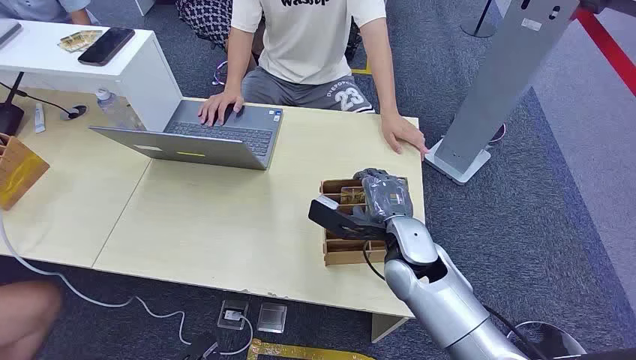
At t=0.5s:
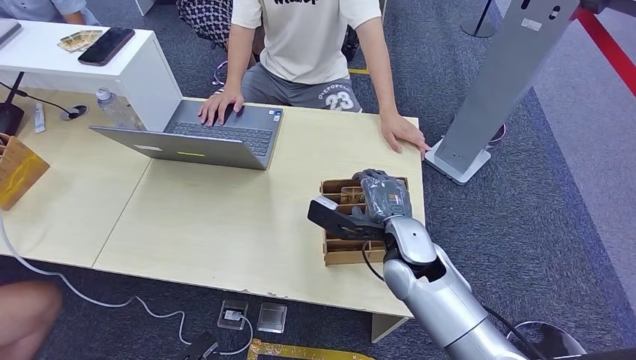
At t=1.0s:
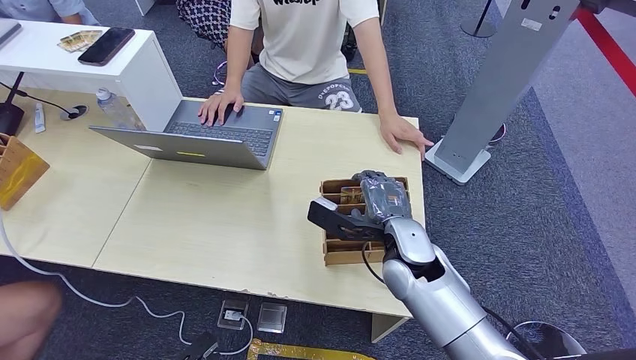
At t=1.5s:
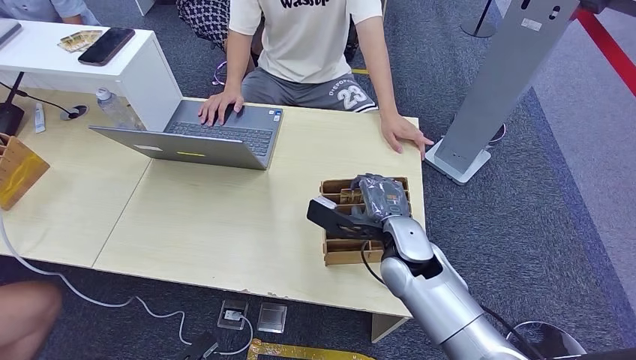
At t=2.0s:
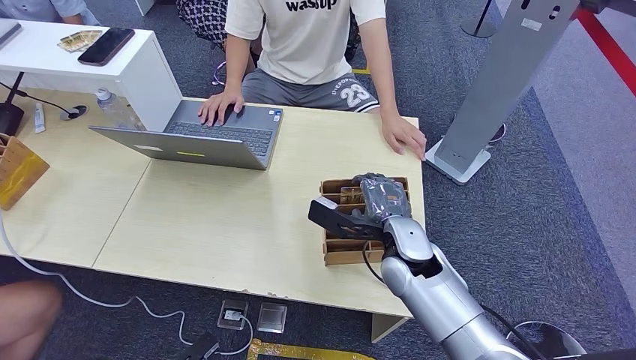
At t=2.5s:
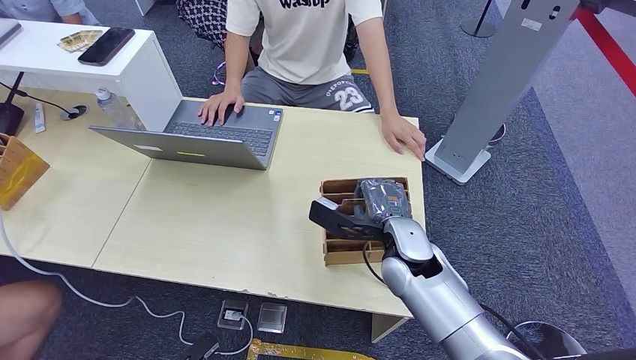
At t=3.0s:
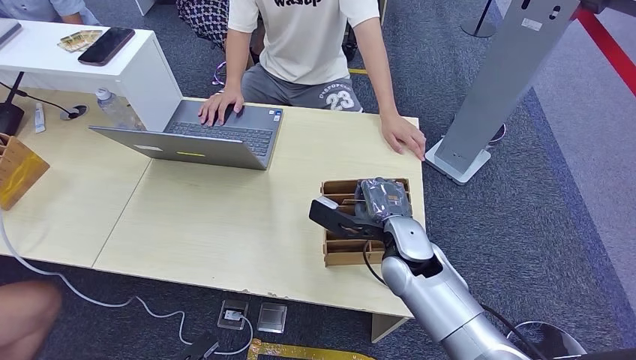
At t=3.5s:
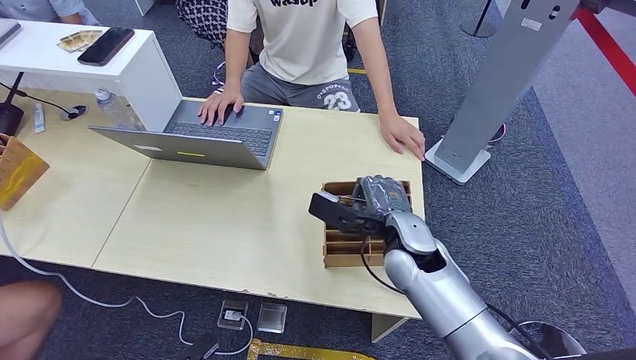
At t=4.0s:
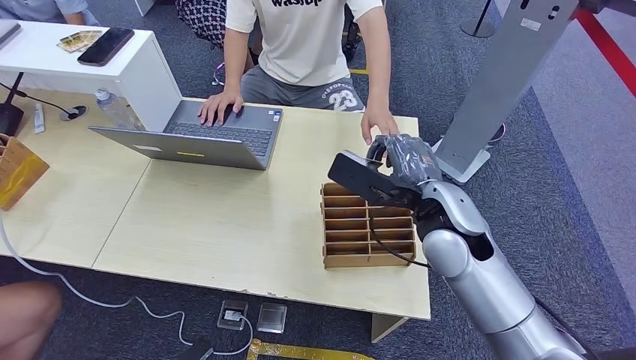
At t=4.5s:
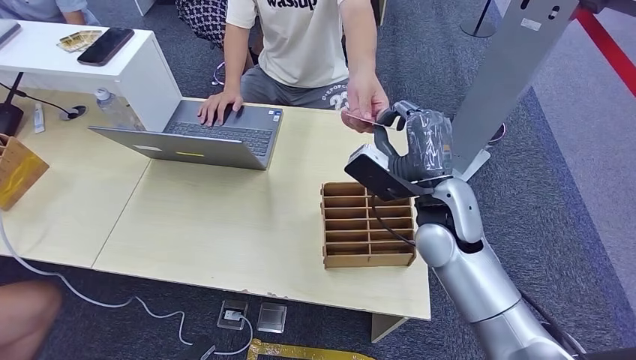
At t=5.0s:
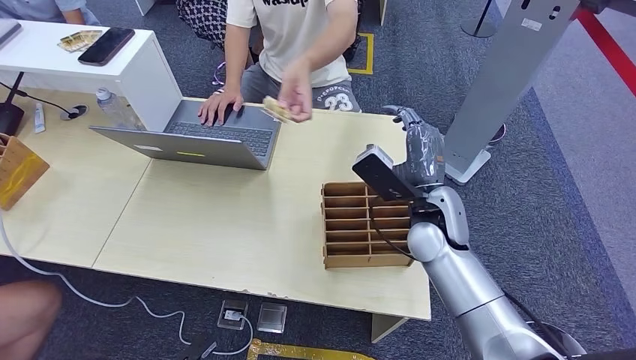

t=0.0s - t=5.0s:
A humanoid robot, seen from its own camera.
Step, t=0.0s - t=3.5s: Pick up the key card from the card box.
Step, t=4.5s - t=5.0s: Hand the key card to the target.
t=2.5s - t=5.0s: The right hand travels upward by approximately 5 cm.
